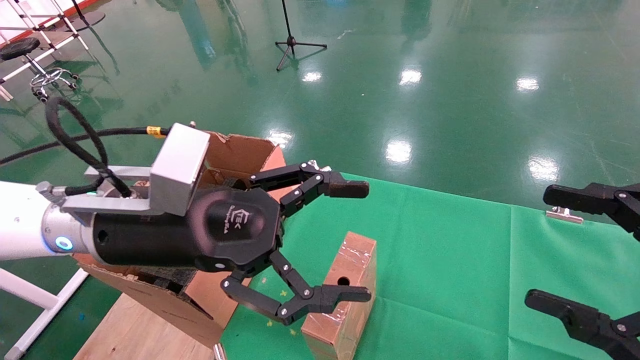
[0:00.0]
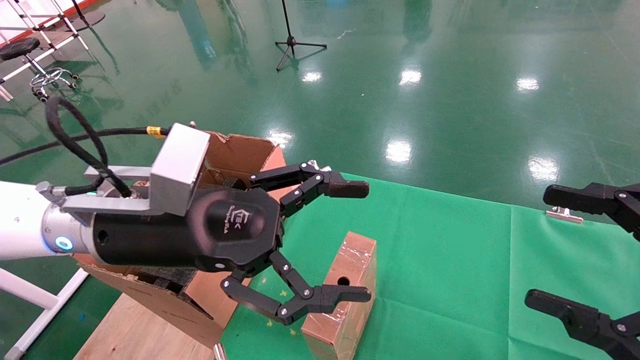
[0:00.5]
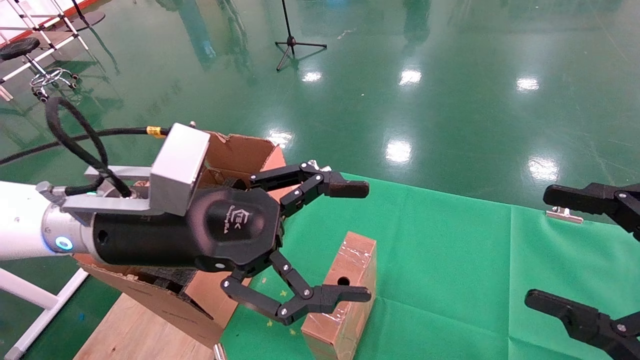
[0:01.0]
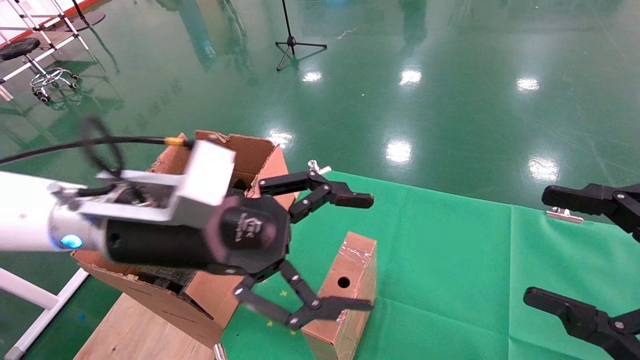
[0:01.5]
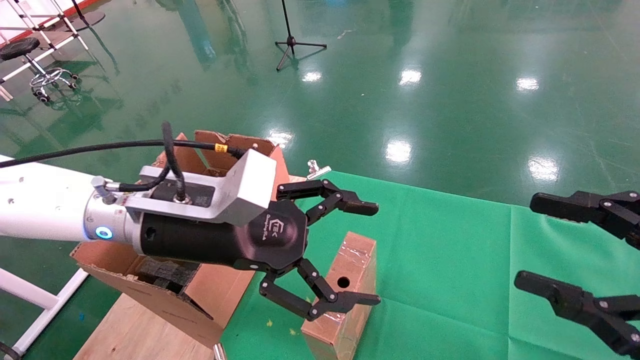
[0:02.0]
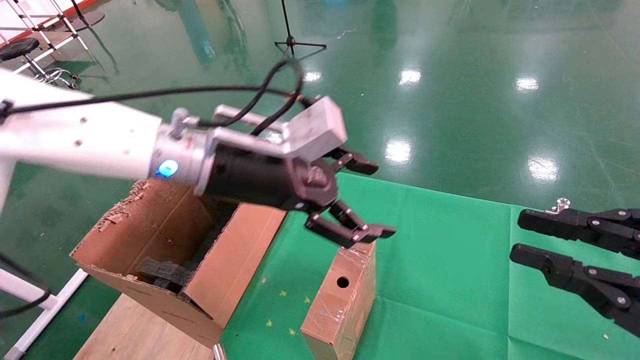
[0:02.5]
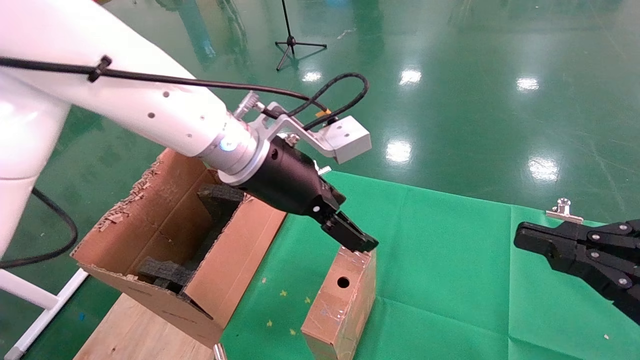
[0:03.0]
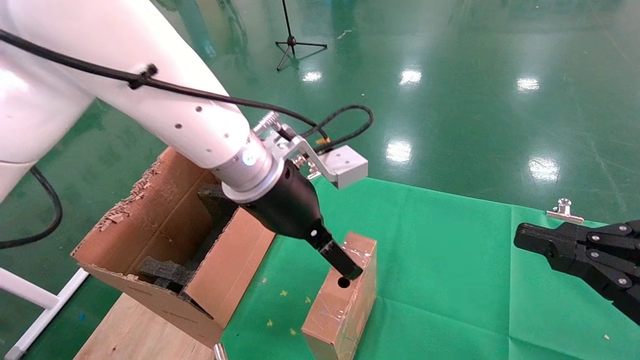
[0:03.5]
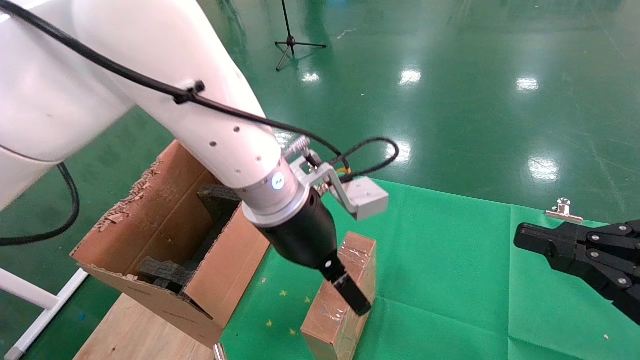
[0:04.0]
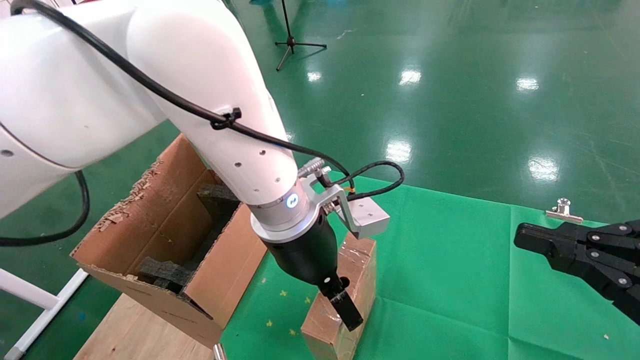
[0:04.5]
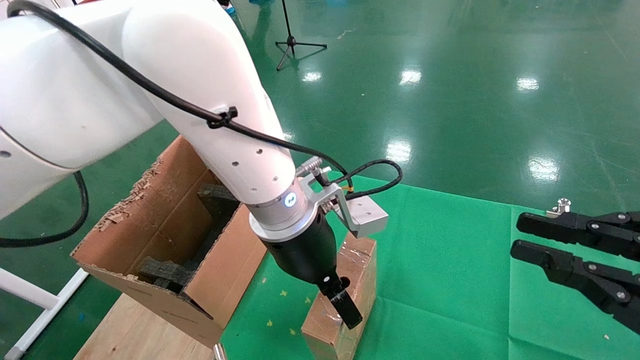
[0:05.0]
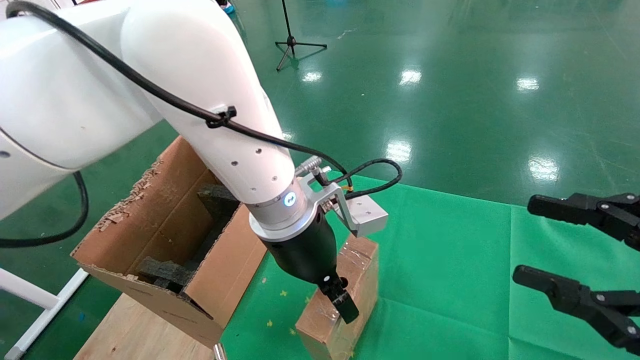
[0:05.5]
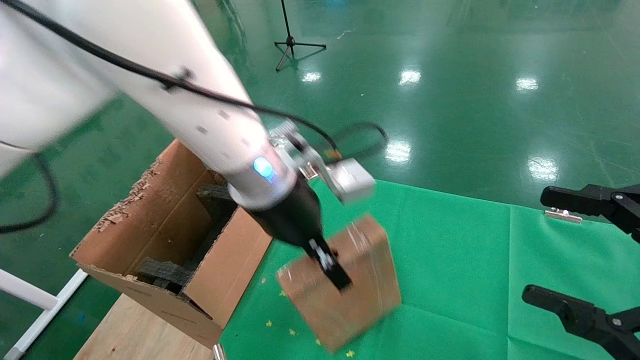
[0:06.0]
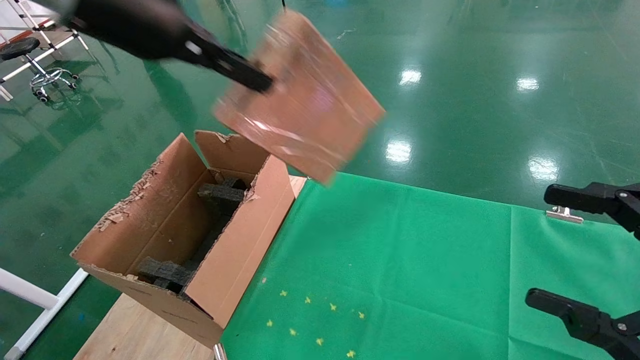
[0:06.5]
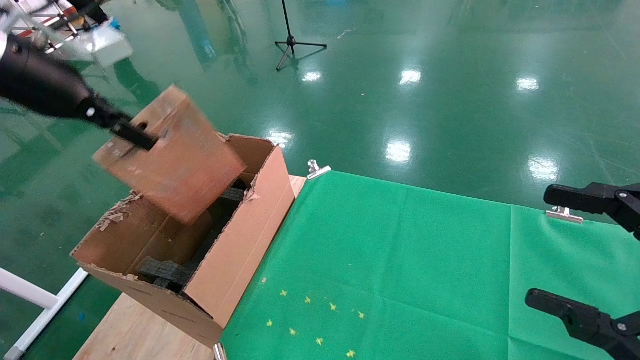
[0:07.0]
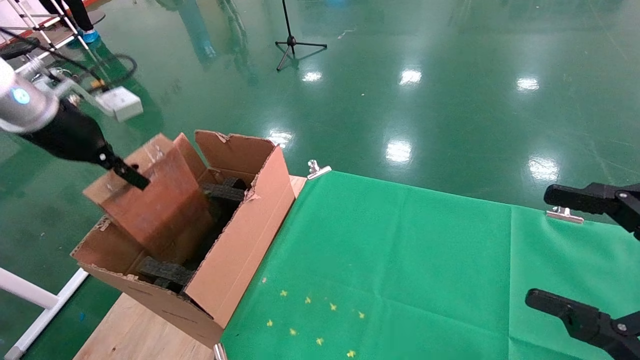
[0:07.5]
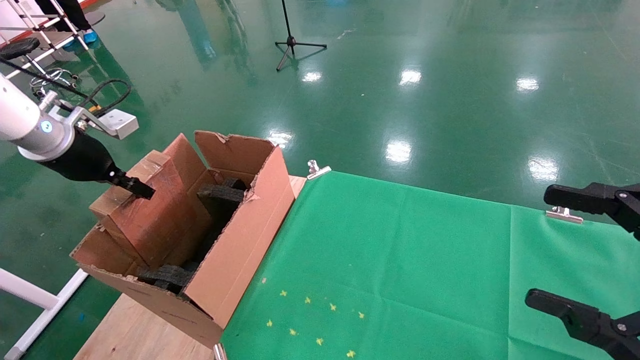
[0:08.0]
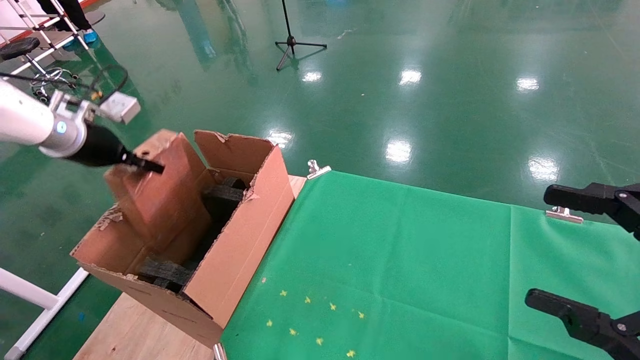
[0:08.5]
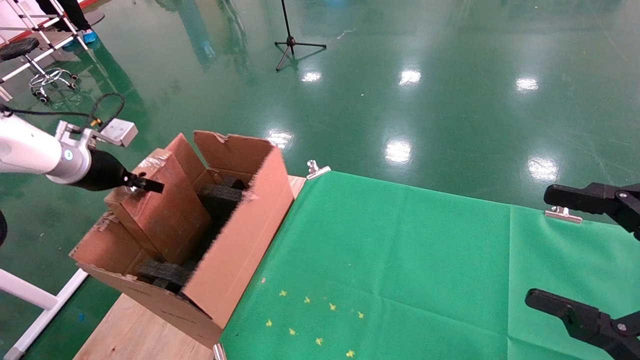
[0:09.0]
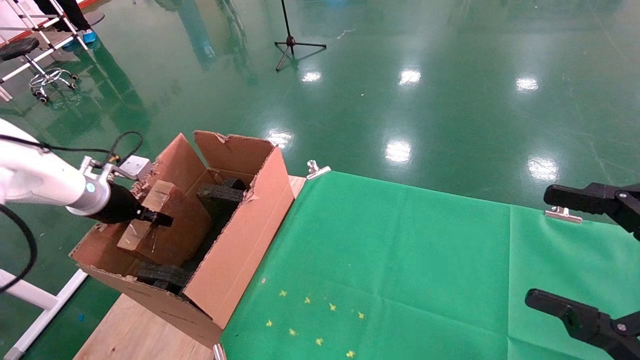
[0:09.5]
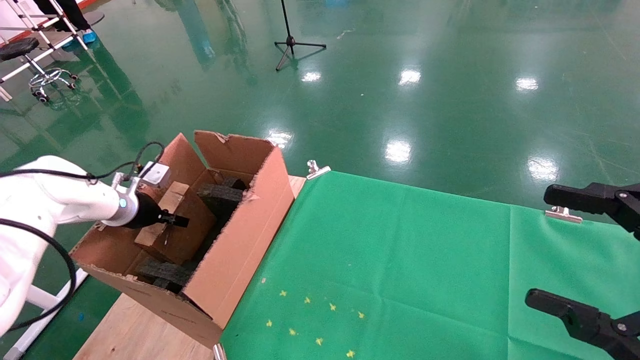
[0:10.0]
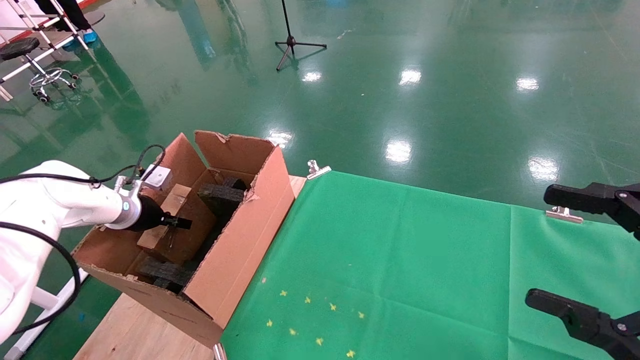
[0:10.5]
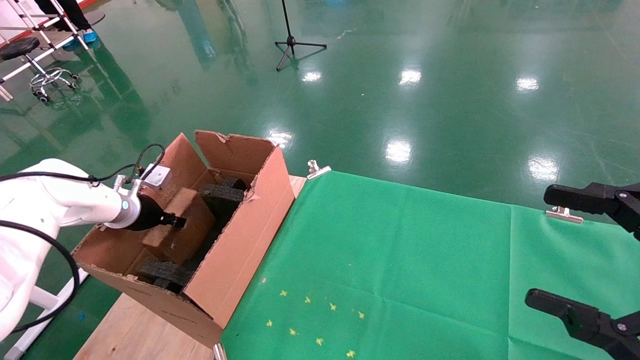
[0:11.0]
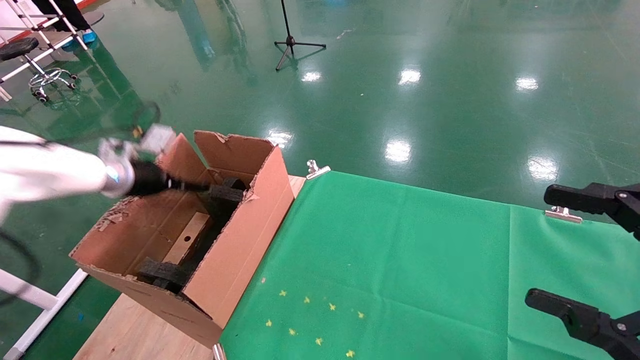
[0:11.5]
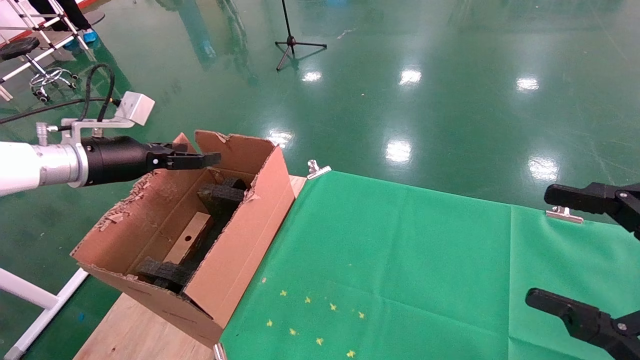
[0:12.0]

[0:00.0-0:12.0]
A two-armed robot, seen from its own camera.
Task of the whole recording: using a robotic arm to pick up a cardboard box and palace it the carton.
Step, 0:01.5 to 0:05.5: Pick up the mouse and the power cord paper box.
Step, 0:06.0 to 0:11.5: Place the mouse and the power cord paper box into the container.
0:00.0 to 0:02.0: The grippers move only a little.
0:02.0 to 0:04.0: The right gripper closes its fingers, while the left gripper moves to the right, approximately 10 cm.
0:04.0 to 0:06.0: The right gripper opens up, while the left gripper closes its fingers.
0:06.0 to 0:08.0: The left gripper goes about 35 cm to the left.
0:08.0 to 0:10.0: The left gripper moves downward and forward, approximately 15 cm.
0:10.0 to 0:12.0: The left gripper heads upward and backward, covering approximately 15 cm, and opens.

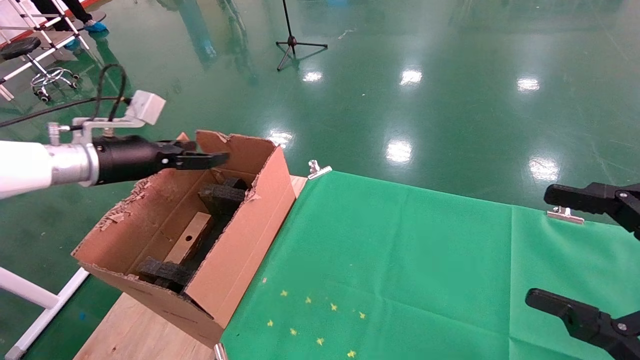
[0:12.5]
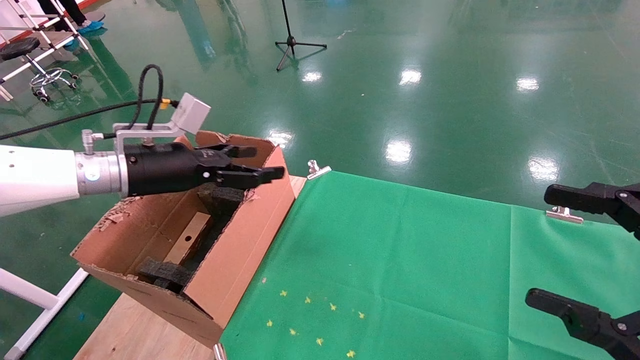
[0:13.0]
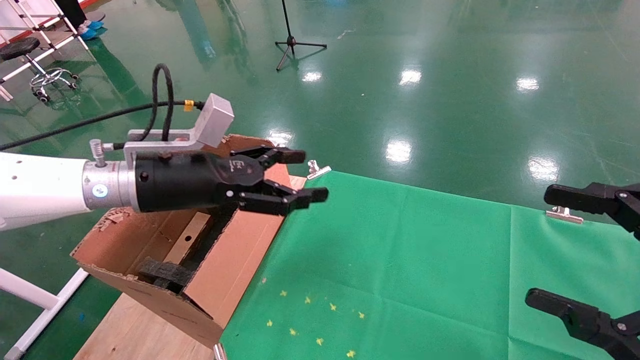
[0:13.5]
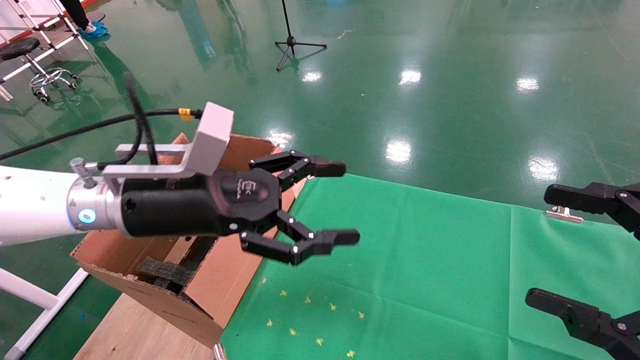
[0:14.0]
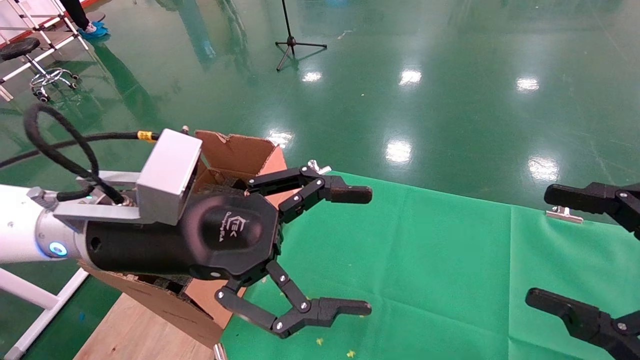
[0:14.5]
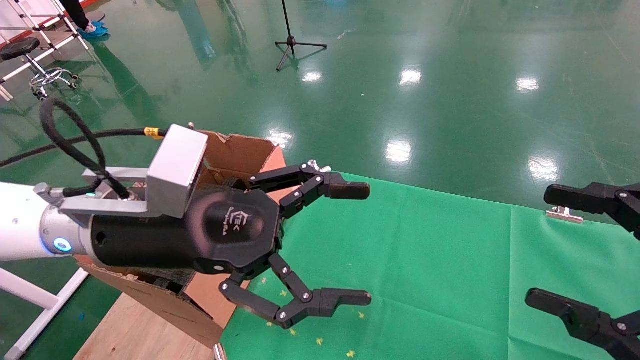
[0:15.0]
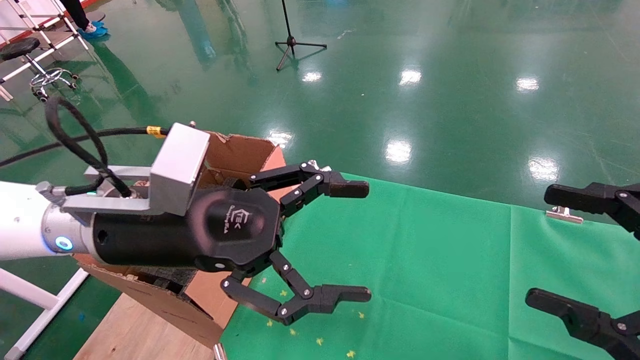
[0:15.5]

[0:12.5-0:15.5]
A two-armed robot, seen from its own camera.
Task of the whole recording: using a robotic arm to pick up a cardboard box and palace it the carton.
0:12.5 to 0:14.0: The left gripper is displaced to the right and backward by about 20 cm.
0:14.0 to 0:15.5: The grippers stay close to where they were, moving slightly.
